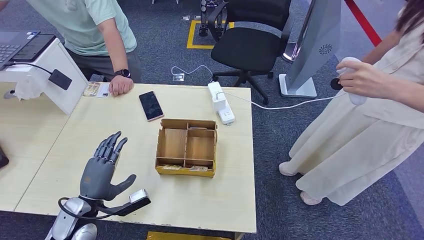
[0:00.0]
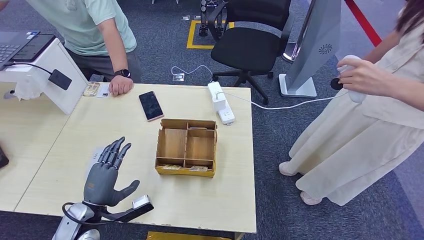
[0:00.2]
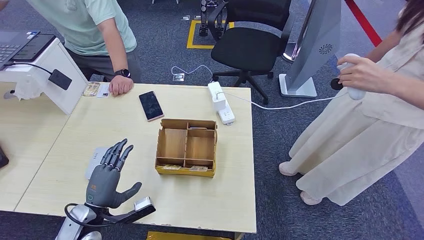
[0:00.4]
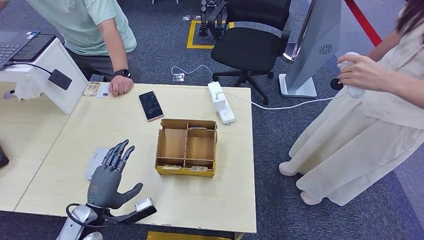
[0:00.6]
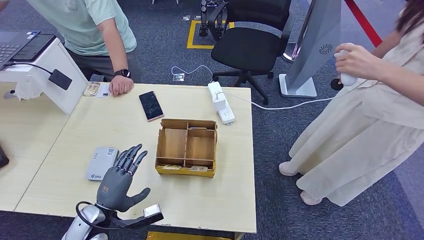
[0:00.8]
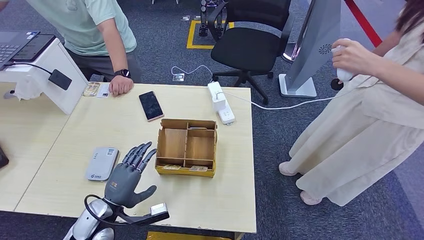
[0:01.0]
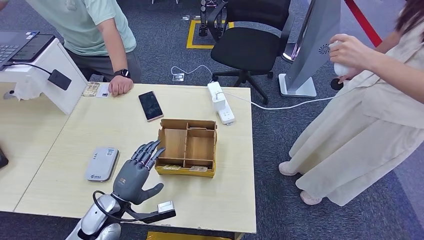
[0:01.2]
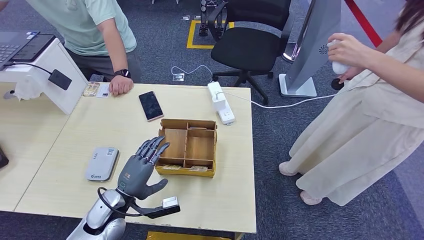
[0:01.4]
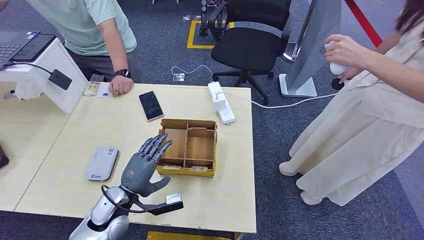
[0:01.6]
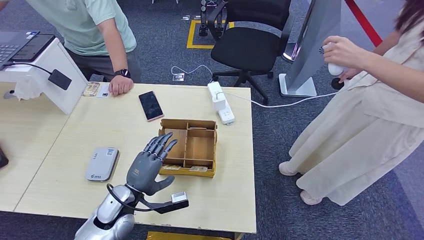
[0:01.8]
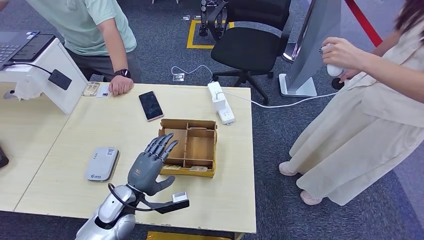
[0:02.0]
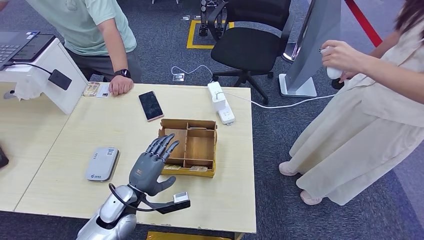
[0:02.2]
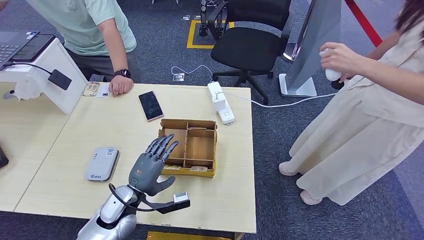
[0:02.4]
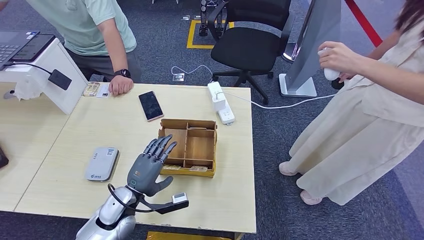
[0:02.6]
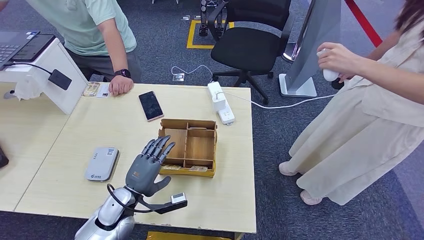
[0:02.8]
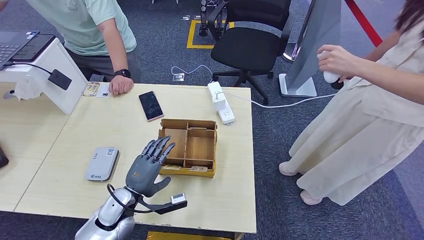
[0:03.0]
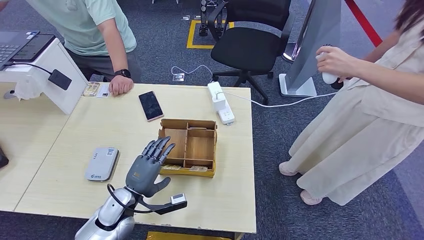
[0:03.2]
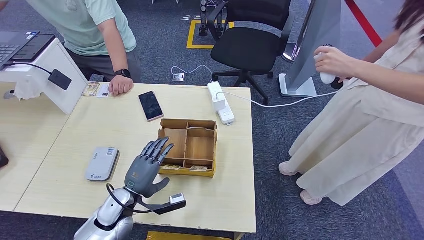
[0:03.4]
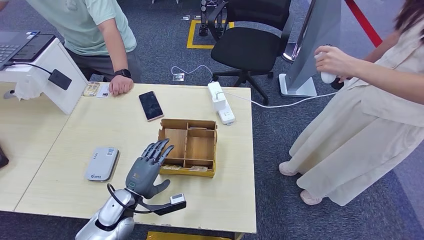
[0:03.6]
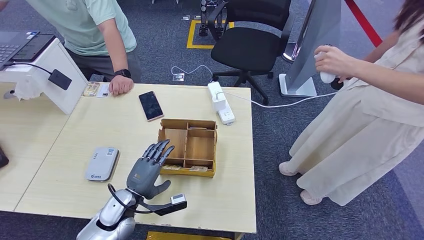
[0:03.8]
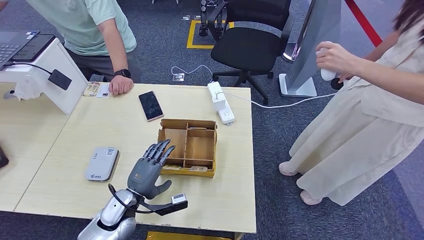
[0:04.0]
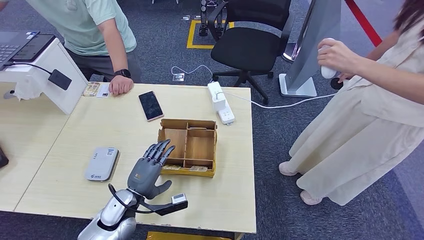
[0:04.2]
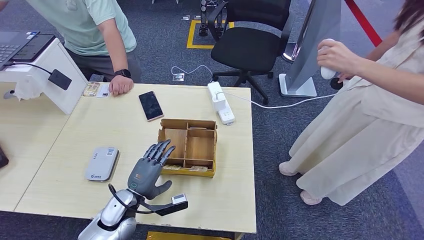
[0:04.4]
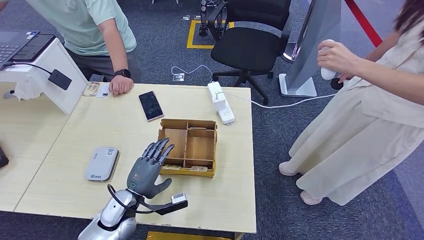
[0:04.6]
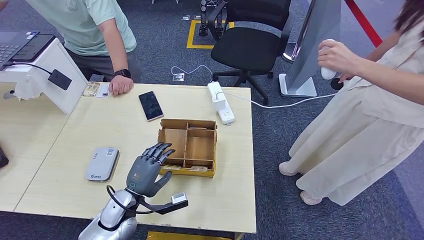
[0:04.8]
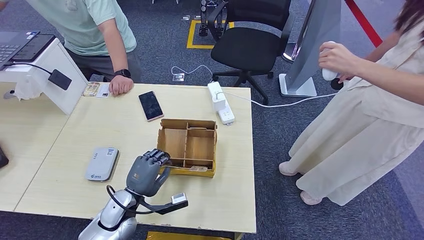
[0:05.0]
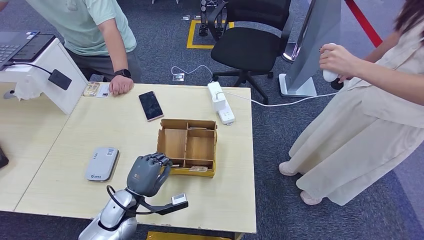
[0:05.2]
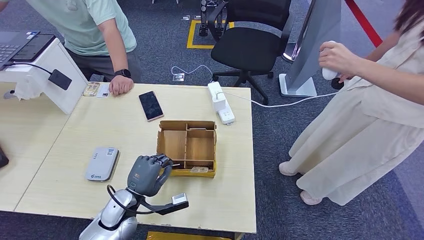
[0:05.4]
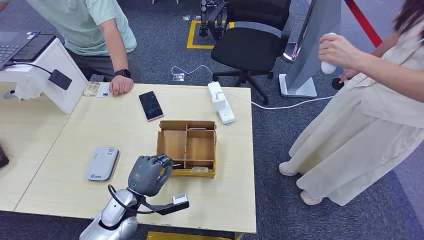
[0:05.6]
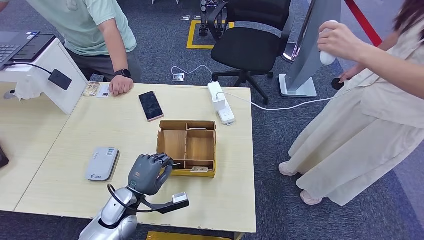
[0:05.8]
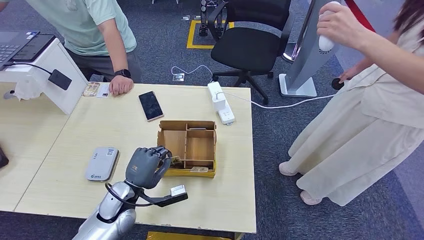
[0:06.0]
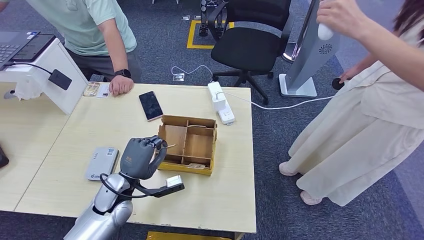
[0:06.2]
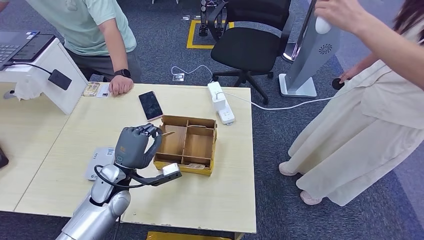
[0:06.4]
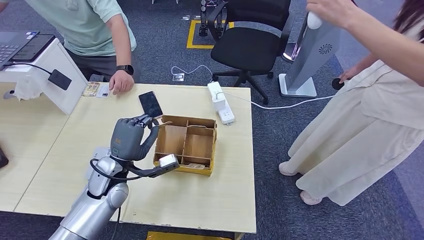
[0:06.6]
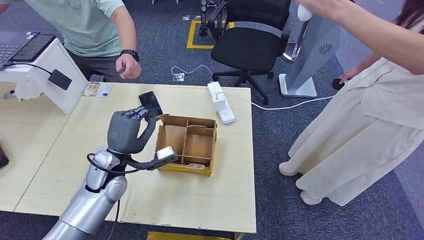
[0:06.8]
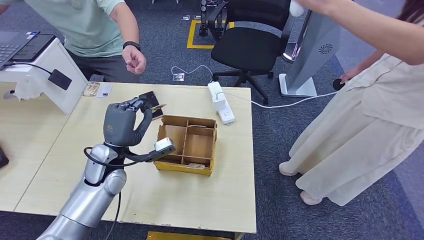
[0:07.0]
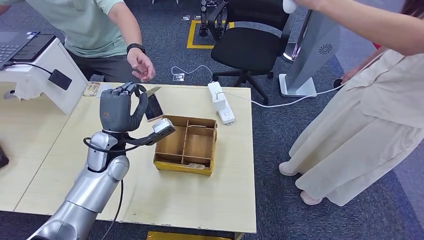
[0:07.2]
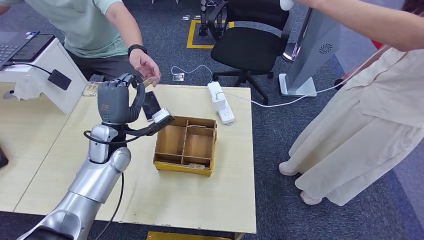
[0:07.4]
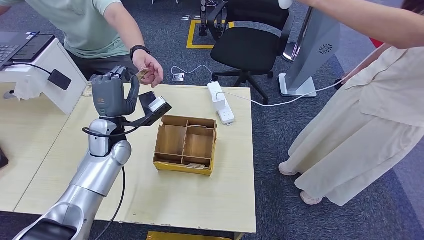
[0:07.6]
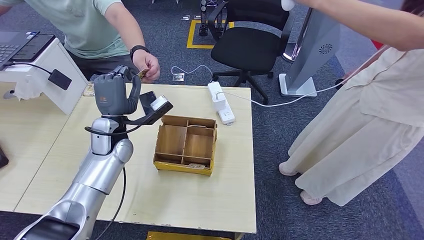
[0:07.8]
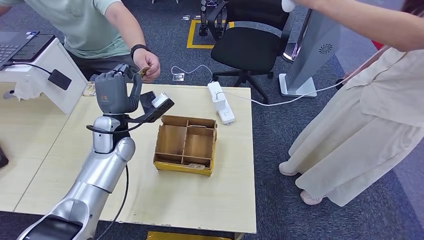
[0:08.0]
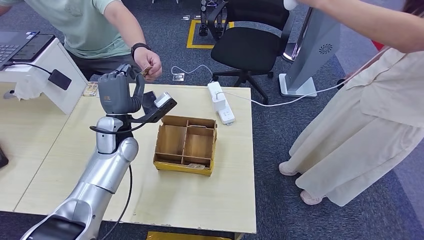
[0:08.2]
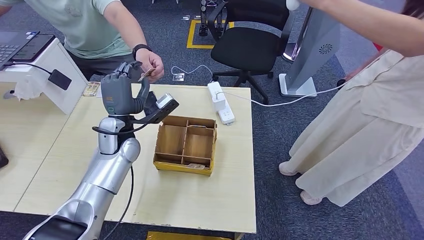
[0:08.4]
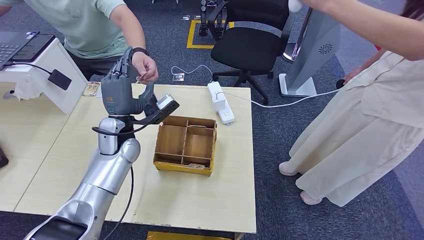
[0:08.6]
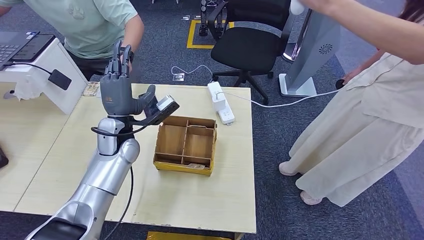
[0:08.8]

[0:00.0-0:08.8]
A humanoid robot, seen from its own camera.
Step, 0:00.0 to 0:06.0: Pick up the room key from the key card box.
Step, 0:06.2 to 0:08.8: Hand the room key to the person.
0:00.0 to 0:01.4: The left hand is displaced to the right by approximately 5 cm.
0:01.4 to 0:05.8: The hands move only a little.
0:07.4 to 0:08.8: The hands move only a little.
